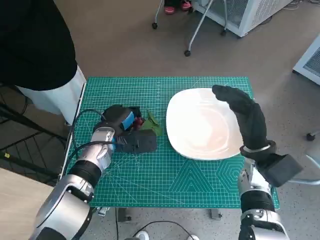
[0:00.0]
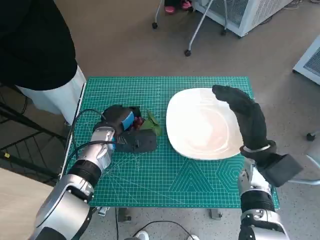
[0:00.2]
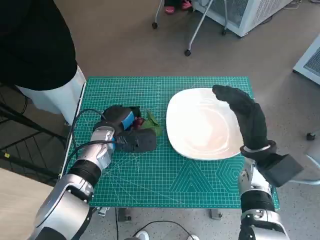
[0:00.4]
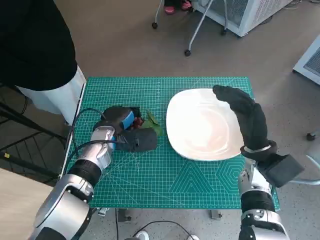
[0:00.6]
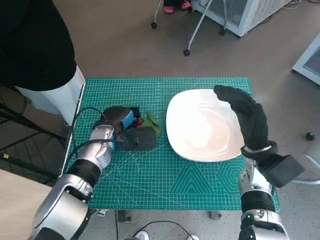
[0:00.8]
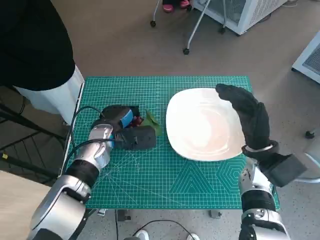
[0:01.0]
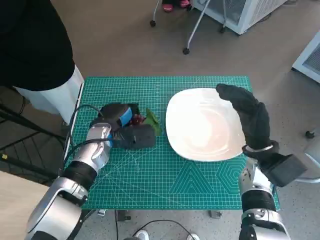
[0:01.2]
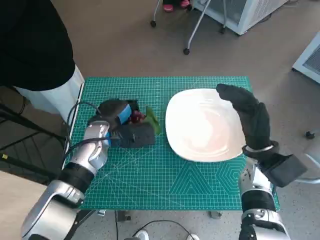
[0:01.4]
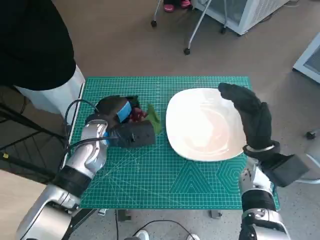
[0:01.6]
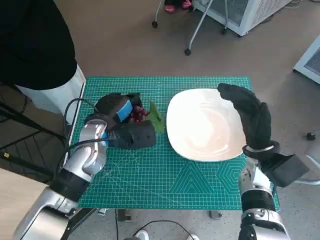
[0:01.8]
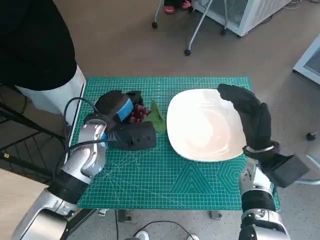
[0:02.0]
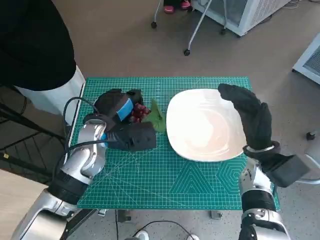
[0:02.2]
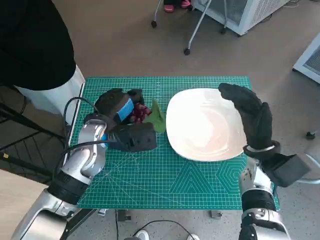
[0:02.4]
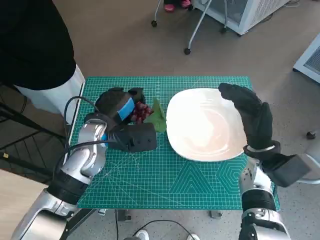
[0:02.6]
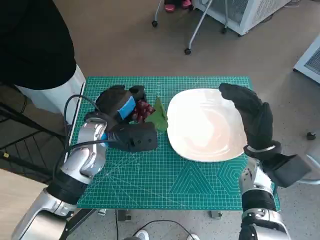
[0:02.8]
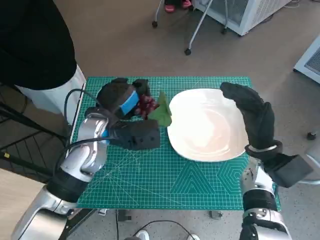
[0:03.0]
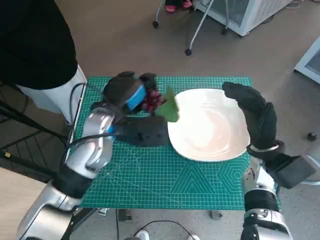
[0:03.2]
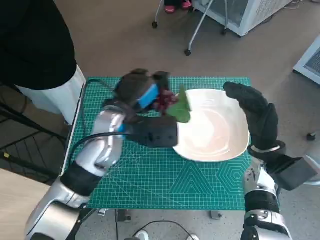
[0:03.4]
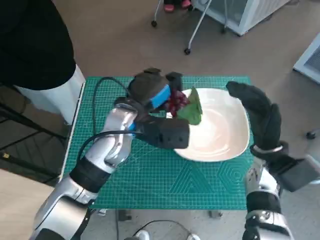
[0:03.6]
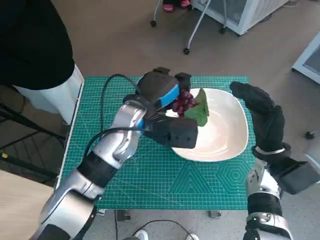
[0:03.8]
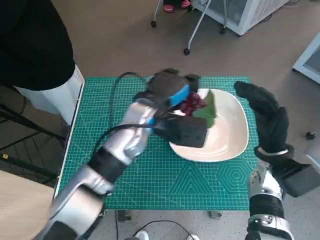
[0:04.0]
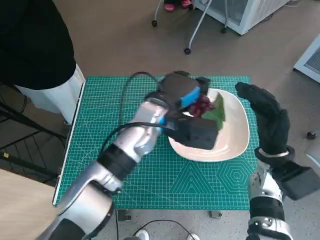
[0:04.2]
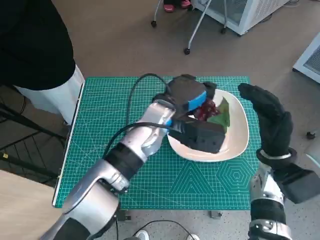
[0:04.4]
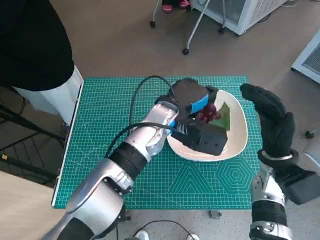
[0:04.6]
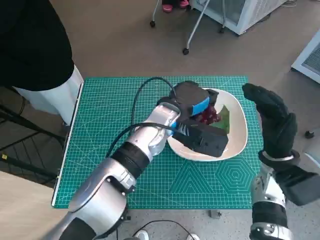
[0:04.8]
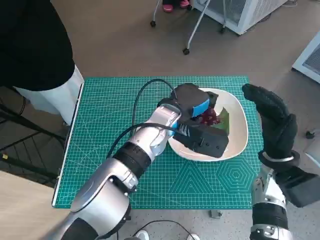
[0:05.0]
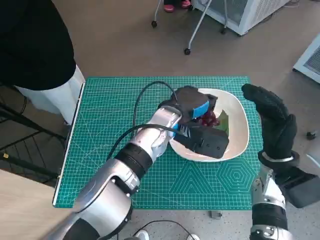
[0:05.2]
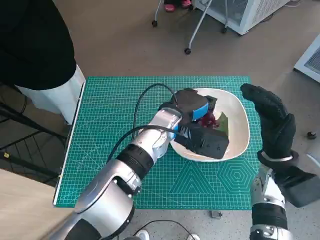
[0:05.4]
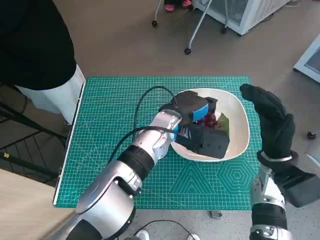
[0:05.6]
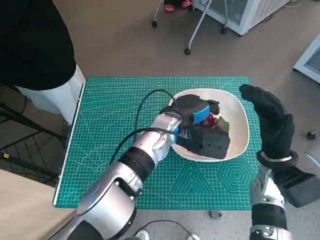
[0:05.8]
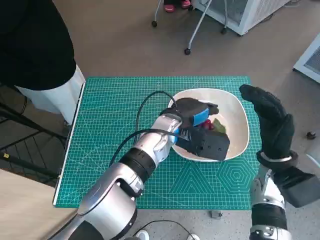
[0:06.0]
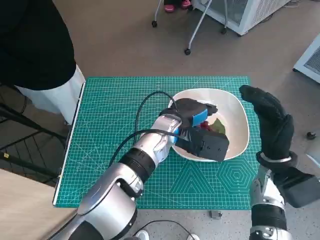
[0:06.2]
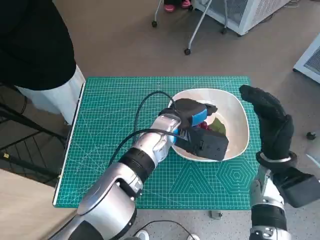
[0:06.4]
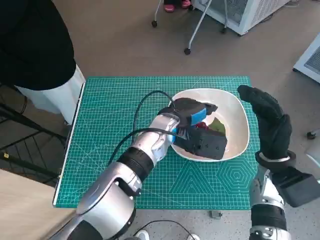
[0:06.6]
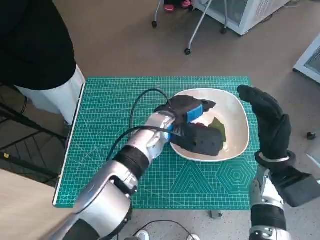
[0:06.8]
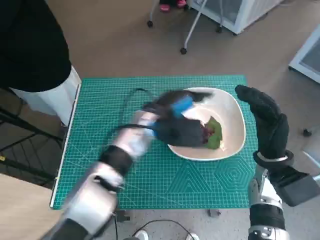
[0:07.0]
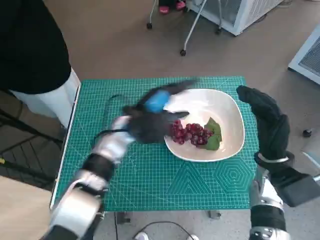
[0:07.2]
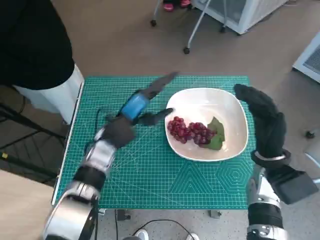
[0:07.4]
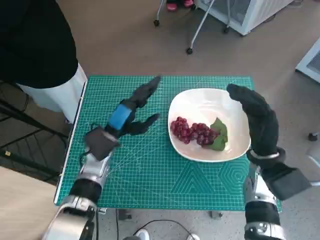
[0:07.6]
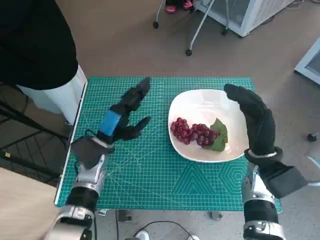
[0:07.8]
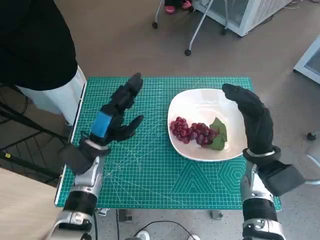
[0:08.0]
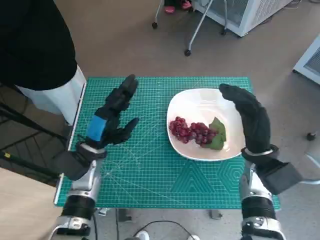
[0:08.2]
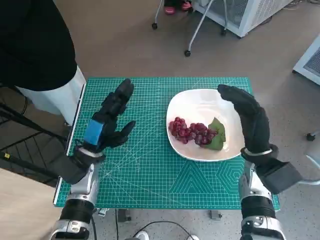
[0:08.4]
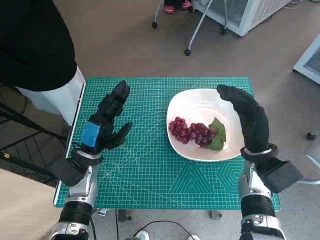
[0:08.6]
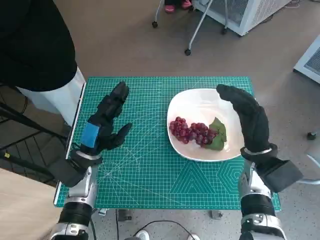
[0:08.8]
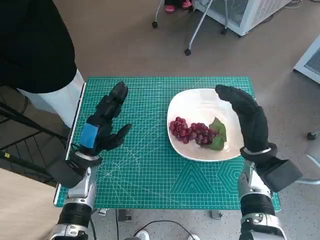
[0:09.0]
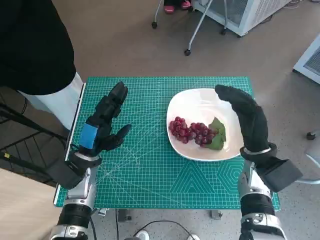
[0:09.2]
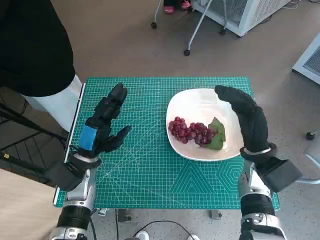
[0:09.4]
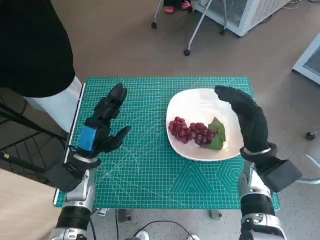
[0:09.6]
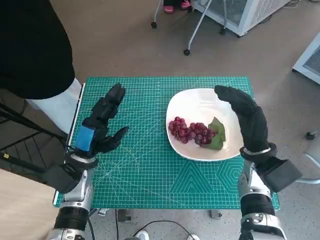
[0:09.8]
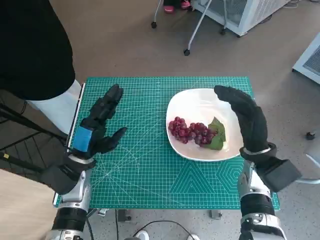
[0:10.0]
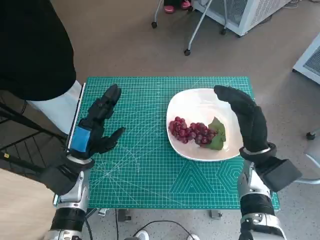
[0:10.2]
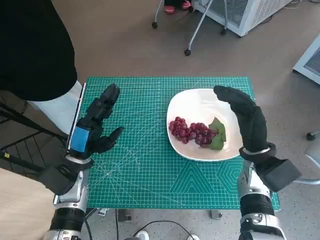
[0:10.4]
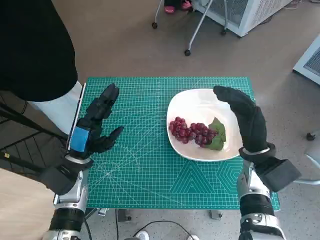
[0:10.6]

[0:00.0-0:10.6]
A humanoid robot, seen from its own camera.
Task of the whole recording: Pick up the grapes and put them on the plate.
Step, 0:00.8 to 0:06.6: Place the grapes in the plate with left hand.
0:00.0 to 0:01.6: The hands make only small movements.
0:01.6 to 0:03.0: There are only small adjustments of the hands.
0:03.0 to 0:04.6: The left hand heads to the right, covering roughly 15 cm.
0:04.6 to 0:06.0: The hands stay close to where they were, moving slightly.
0:06.0 to 0:07.6: The left hand moves to the left, some 15 cm.
0:07.6 to 0:09.0: The left hand changes place by some 5 cm.
0:09.0 to 0:10.6: The hands make only small movements.

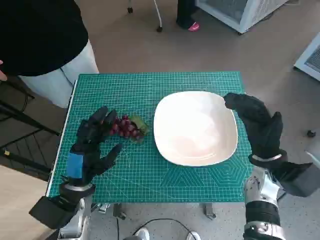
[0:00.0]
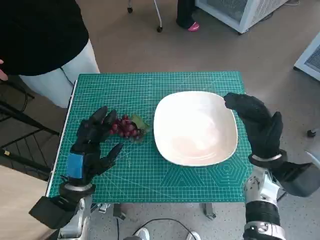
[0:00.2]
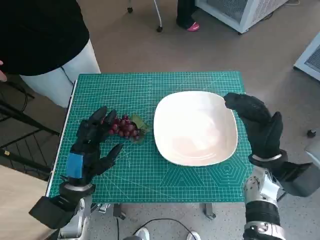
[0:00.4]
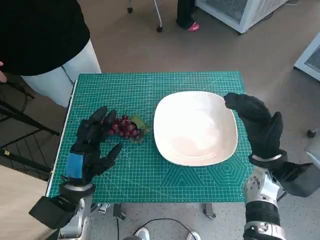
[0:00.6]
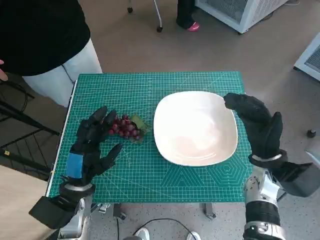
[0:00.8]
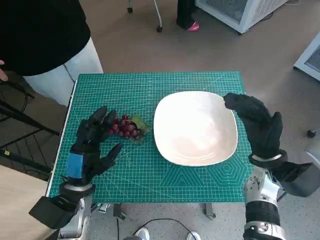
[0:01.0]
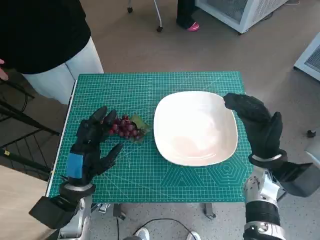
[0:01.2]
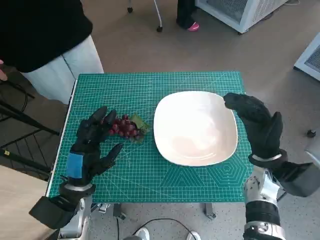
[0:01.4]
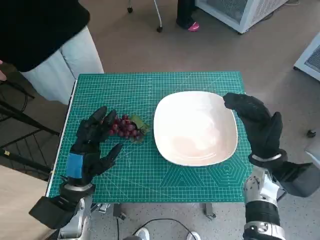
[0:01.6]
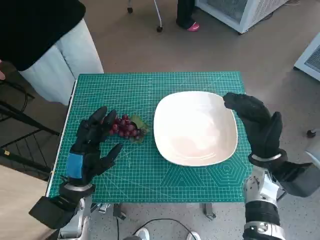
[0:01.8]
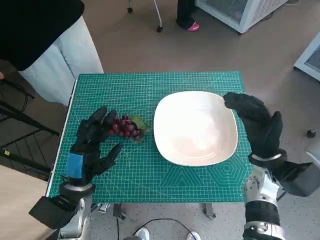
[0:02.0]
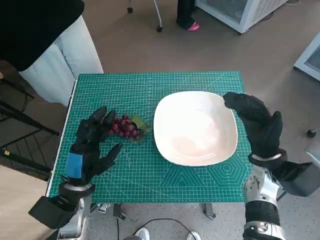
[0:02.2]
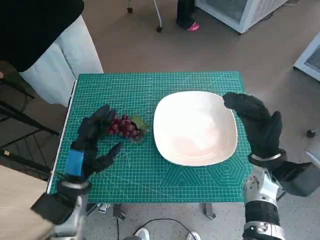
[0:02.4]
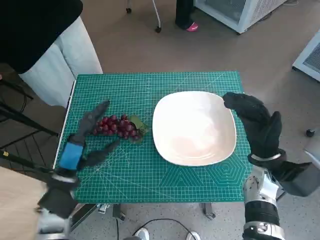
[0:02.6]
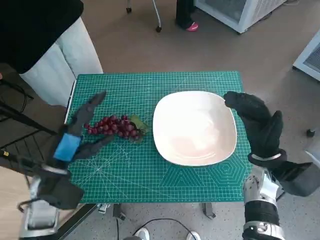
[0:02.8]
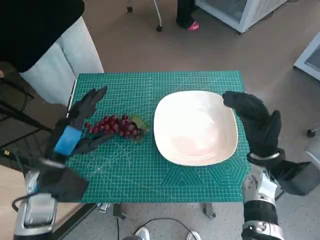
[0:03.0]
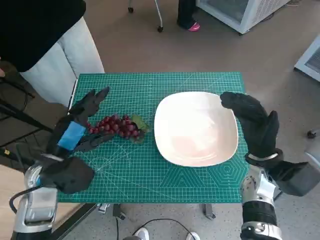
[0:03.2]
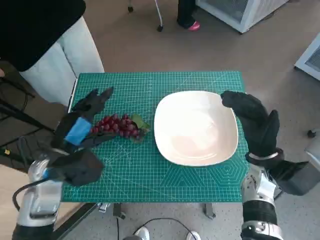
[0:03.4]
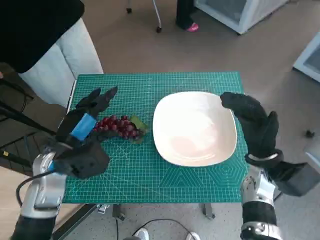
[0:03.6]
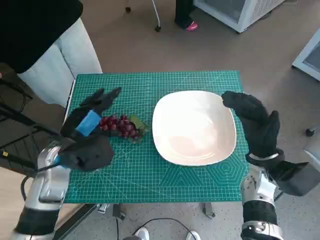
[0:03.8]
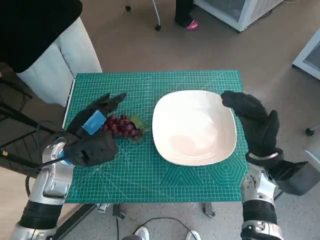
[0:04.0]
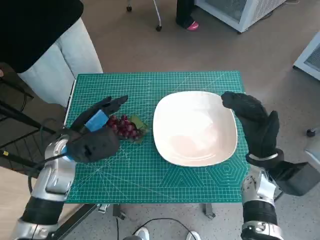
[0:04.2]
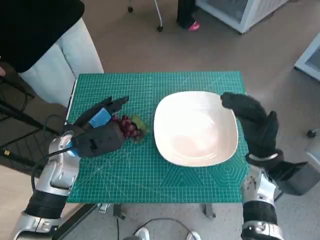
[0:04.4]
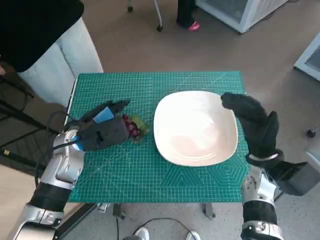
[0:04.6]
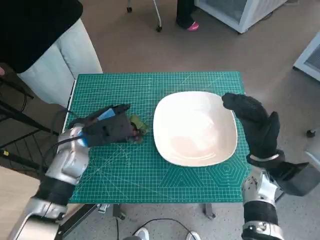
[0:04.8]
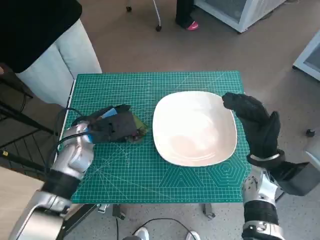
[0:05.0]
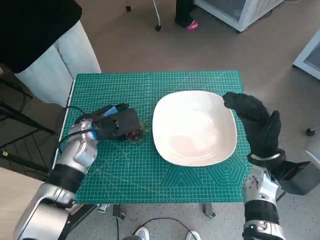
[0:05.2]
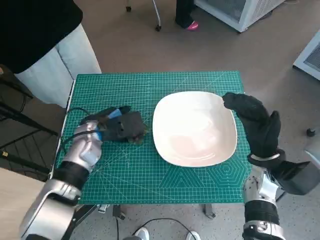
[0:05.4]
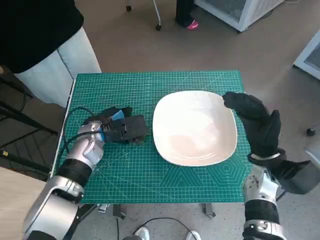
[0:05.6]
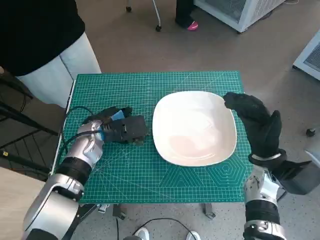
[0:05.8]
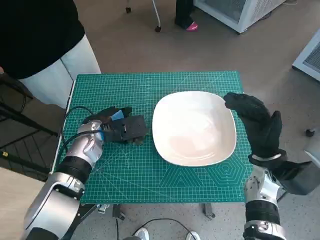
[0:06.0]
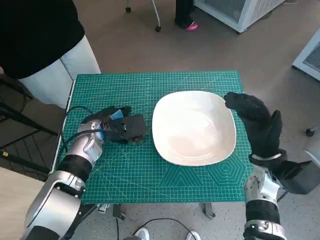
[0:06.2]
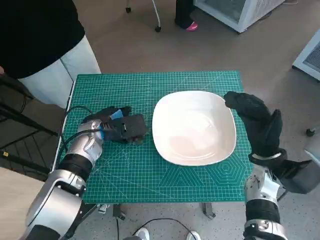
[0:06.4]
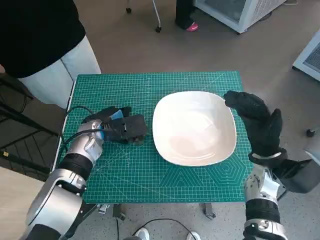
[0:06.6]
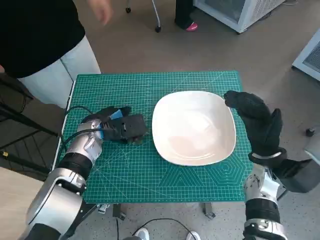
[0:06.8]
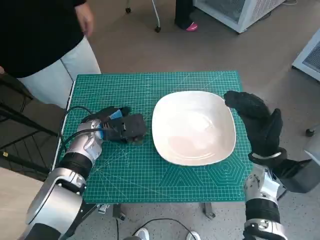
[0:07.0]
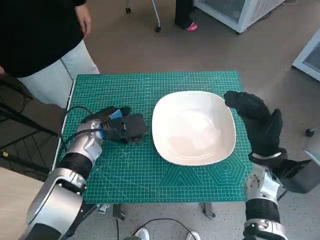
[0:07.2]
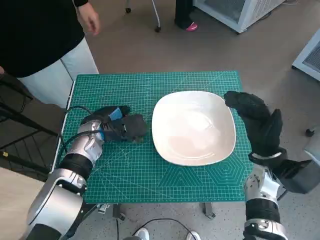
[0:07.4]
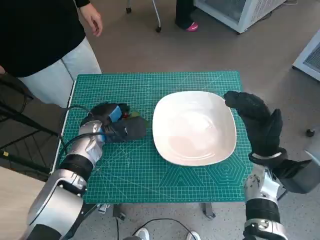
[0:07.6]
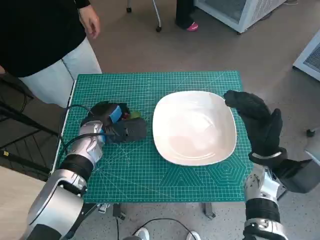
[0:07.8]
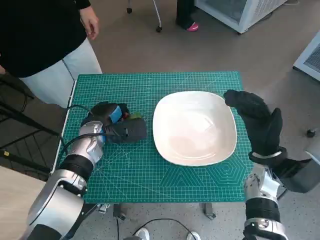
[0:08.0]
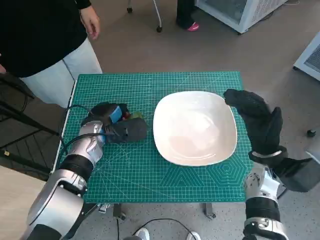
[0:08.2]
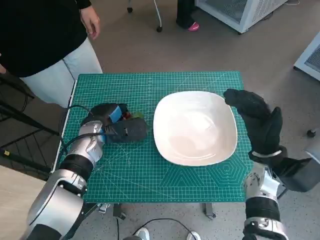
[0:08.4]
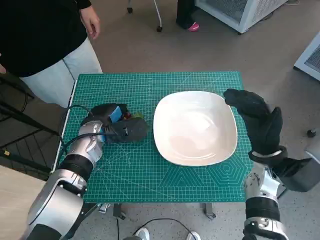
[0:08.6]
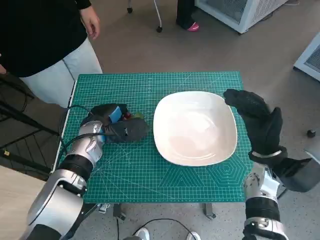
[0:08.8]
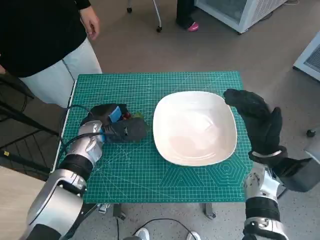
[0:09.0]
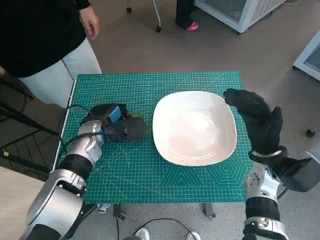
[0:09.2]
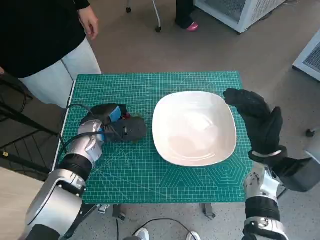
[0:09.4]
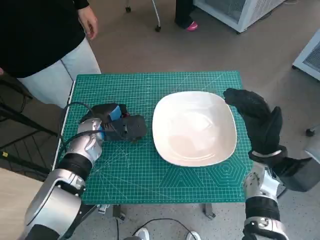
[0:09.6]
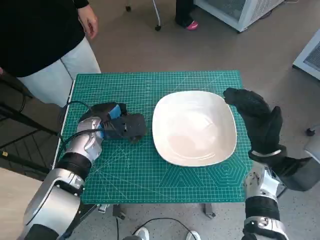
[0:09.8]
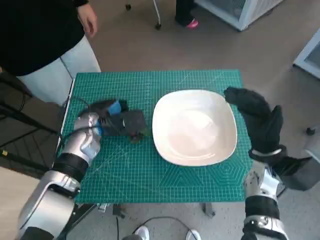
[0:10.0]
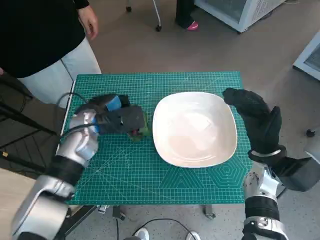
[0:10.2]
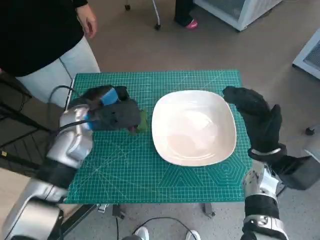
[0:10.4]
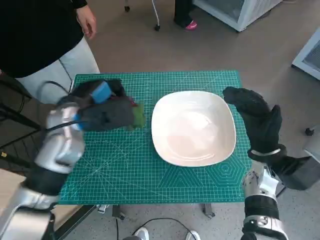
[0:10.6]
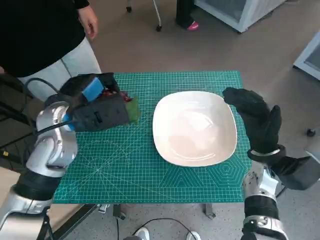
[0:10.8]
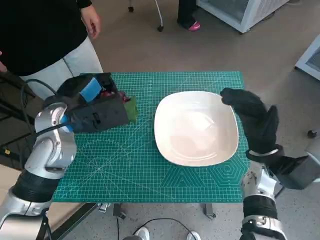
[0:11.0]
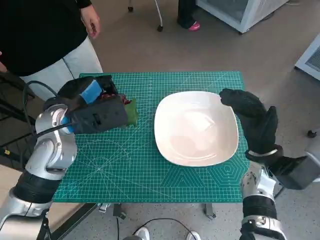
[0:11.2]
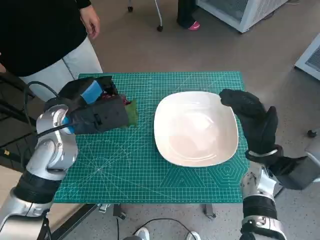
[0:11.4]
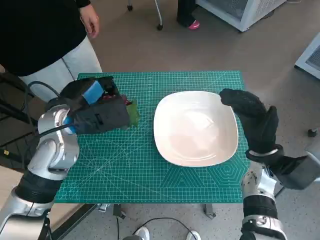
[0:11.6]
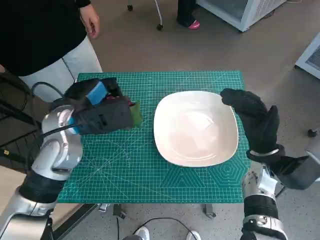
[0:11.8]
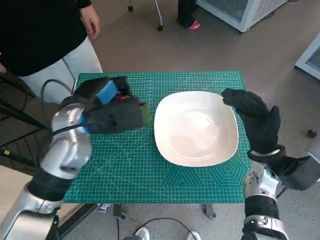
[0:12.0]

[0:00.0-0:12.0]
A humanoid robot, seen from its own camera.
Task of the whole recording: Pick up the grapes and put them on the plate.
Step, 0:00.0 to 0:09.6: Grasp the grapes with left hand.
0:01.6 to 0:03.0: The left hand heads upward, covering some 5 cm.
0:03.0 to 0:04.4: The left hand goes approximately 5 cm forward.
0:04.4 to 0:06.0: The left hand heads forward, covering approximately 5 cm.
0:06.0 to 0:07.6: The hands move only a little.
0:07.6 to 0:09.0: The two hands keep their place.
0:09.0 to 0:10.4: The left hand is displaced upward by approximately 5 cm.
0:10.4 to 0:12.0: The hands move only a little.
